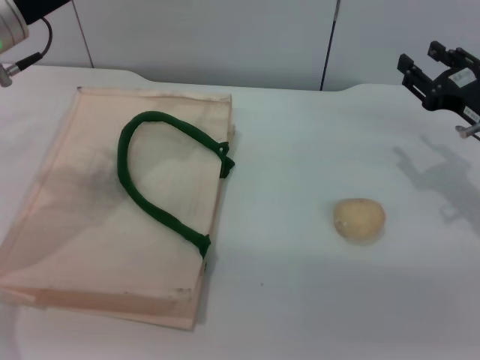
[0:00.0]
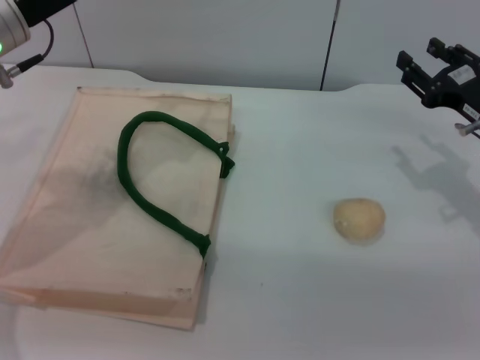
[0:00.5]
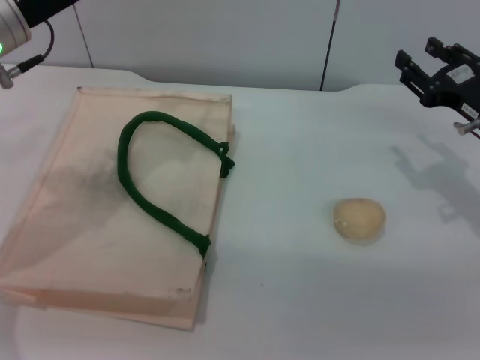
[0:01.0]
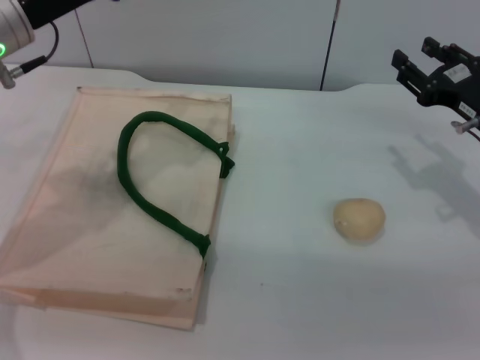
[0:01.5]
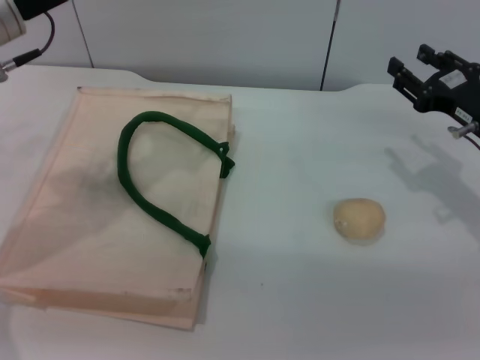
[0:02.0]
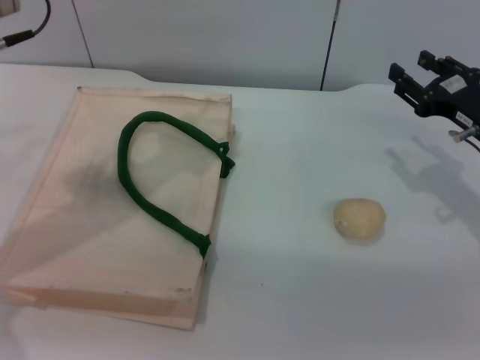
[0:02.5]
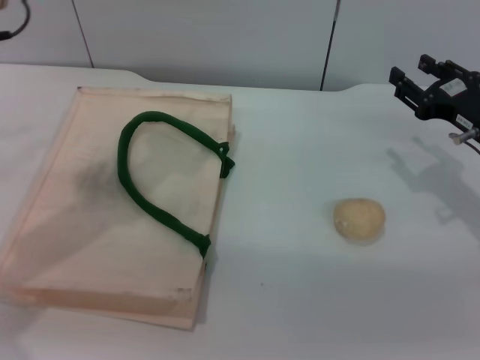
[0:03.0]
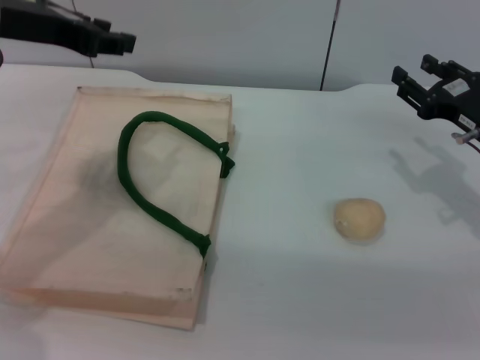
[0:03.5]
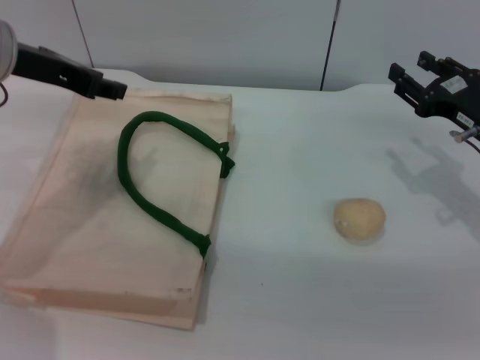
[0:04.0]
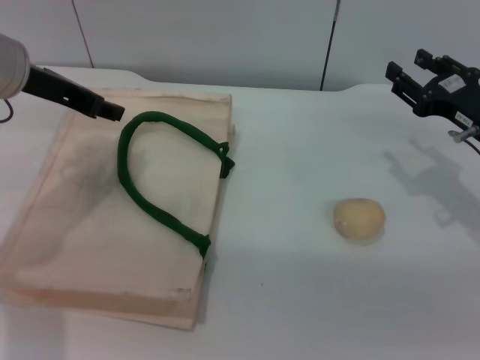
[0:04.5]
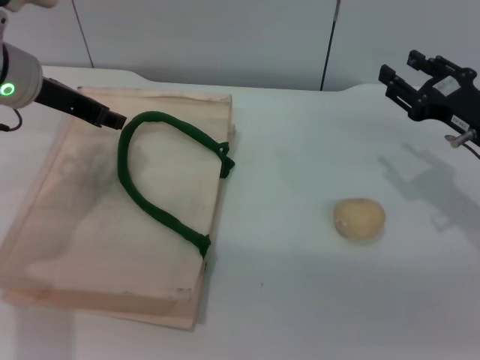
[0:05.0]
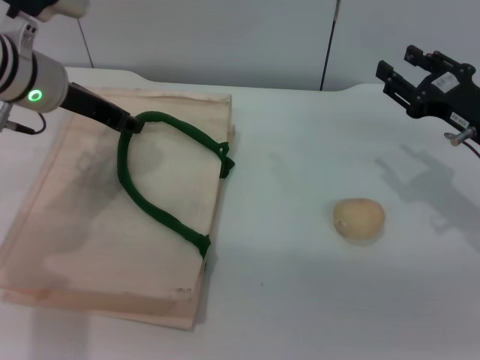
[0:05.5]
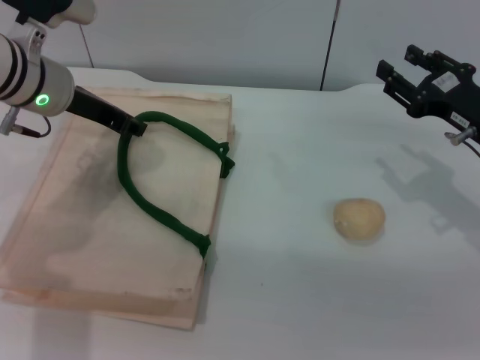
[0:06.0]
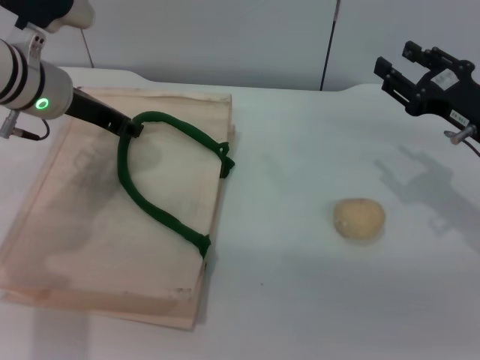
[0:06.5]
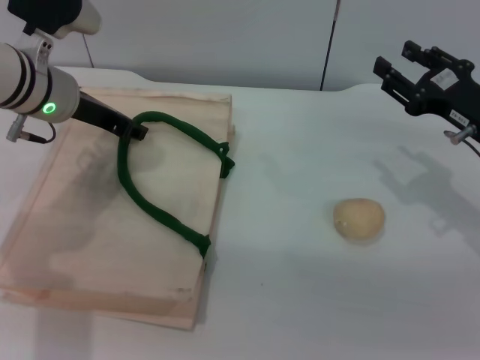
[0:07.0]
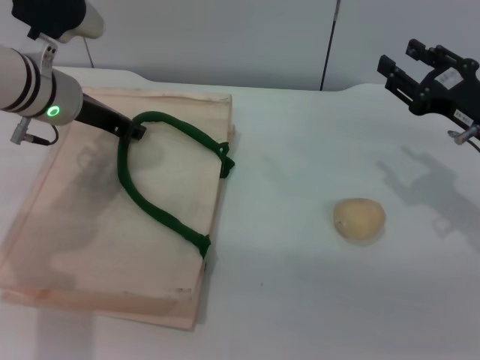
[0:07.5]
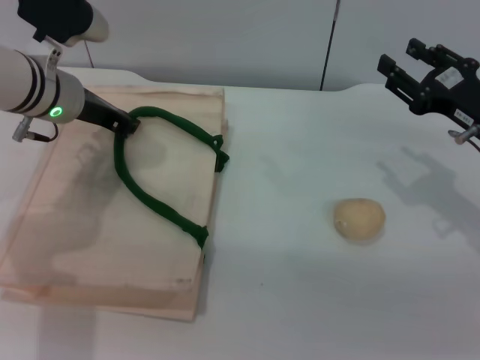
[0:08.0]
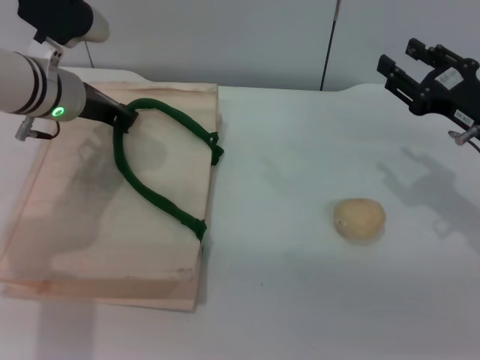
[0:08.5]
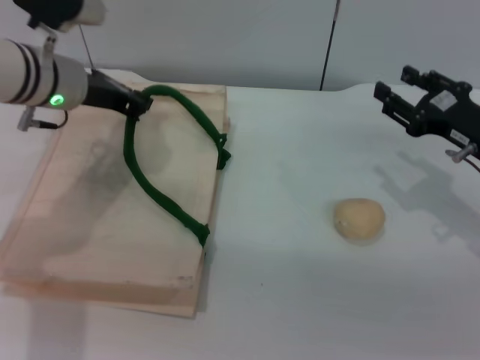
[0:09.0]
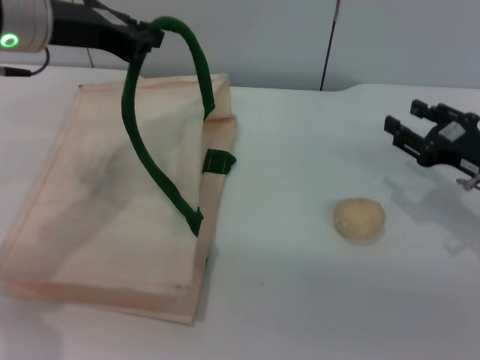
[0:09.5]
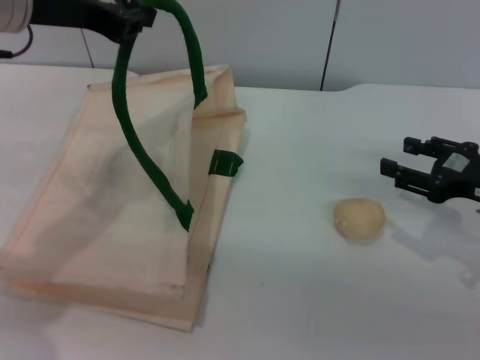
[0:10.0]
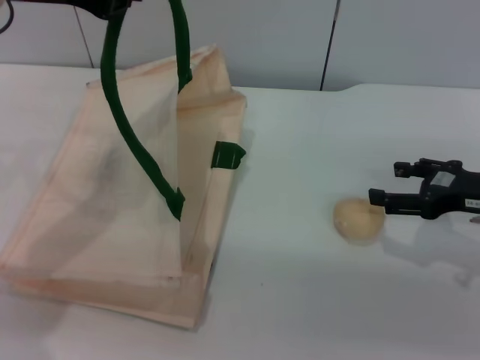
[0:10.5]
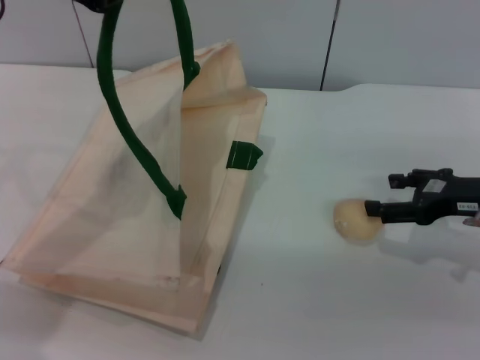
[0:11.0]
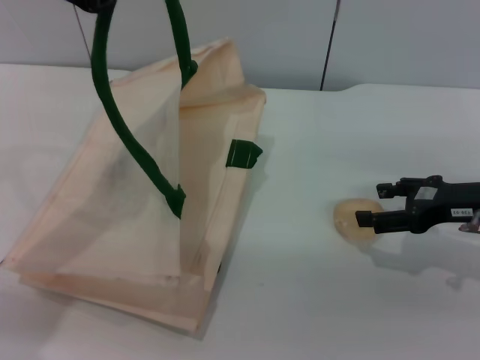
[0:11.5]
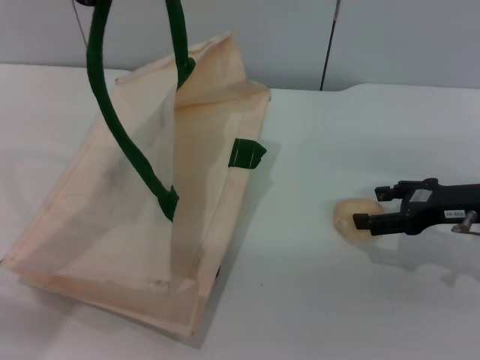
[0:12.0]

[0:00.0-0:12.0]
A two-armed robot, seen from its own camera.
Task of the whole recording: pick up the egg yolk pastry from the table and place it in the white handbag.
Step, 0:00.0 to 0:08.5: Lift the woven bag with the left gripper to open it.
0:00.0 to 0:02.0: There are only small adjustments of the grippers.
0:04.0 to 0:06.0: The left gripper shifts roughly 5 cm downward.
0:06.0 to 0:08.0: The left gripper closes.
0:08.0 to 0:10.0: The right gripper moves roughly 5 cm; the left gripper travels upward and backward by some 15 cm, and closes its fingers.
0:10.0 to 0:12.0: The right gripper opens up, while the left gripper moves roughly 5 cm.

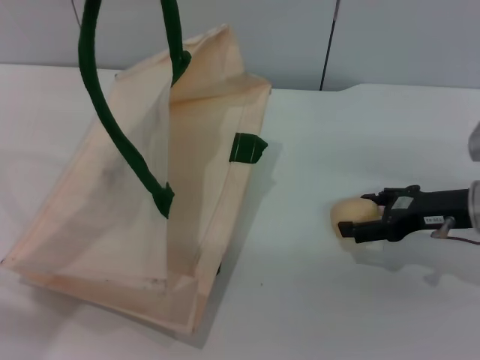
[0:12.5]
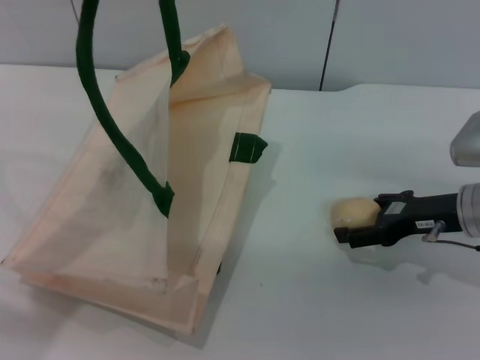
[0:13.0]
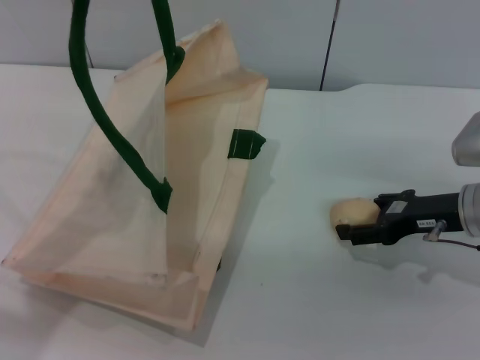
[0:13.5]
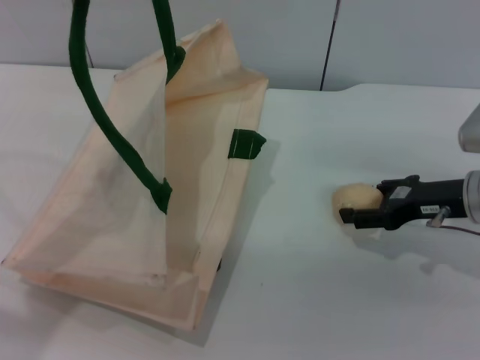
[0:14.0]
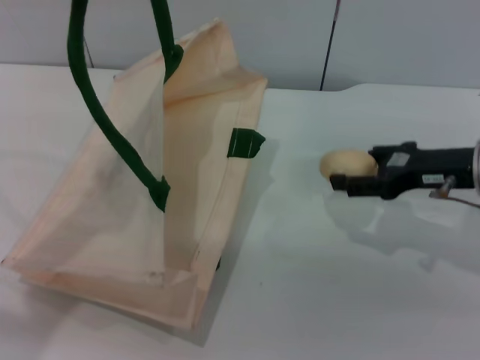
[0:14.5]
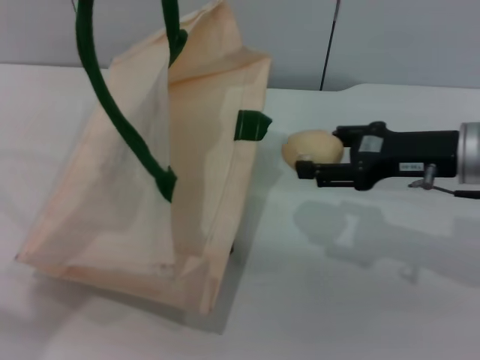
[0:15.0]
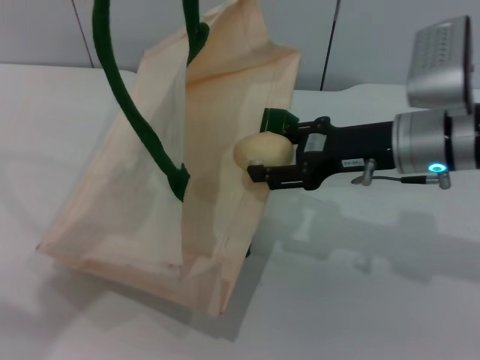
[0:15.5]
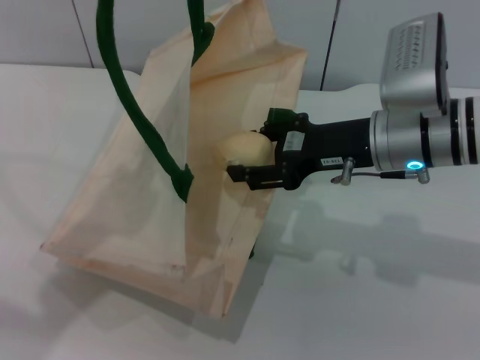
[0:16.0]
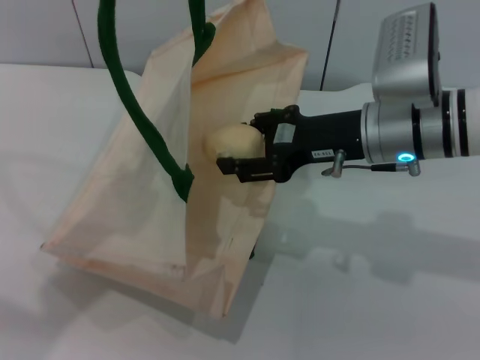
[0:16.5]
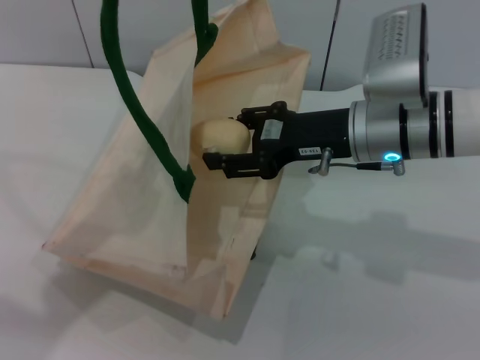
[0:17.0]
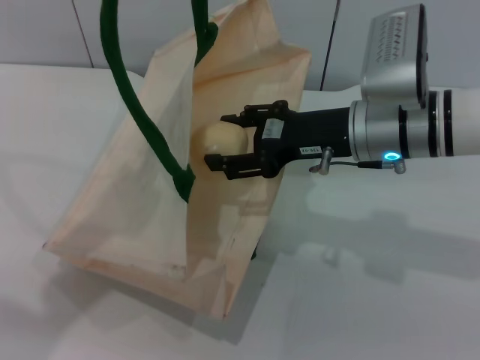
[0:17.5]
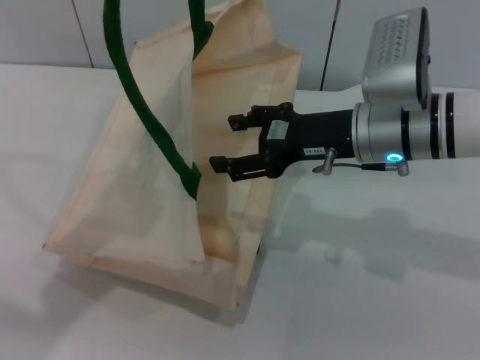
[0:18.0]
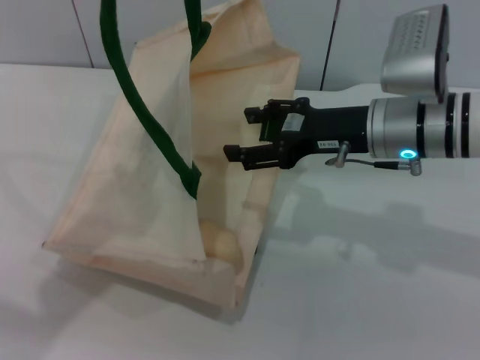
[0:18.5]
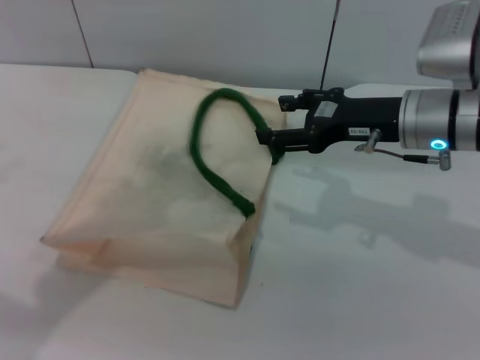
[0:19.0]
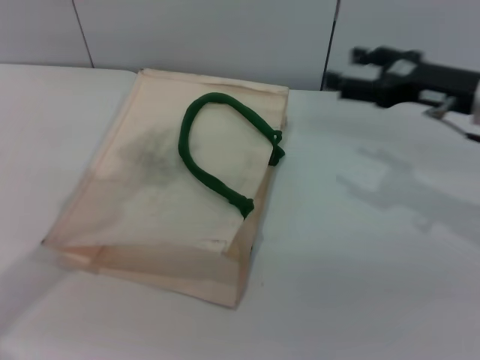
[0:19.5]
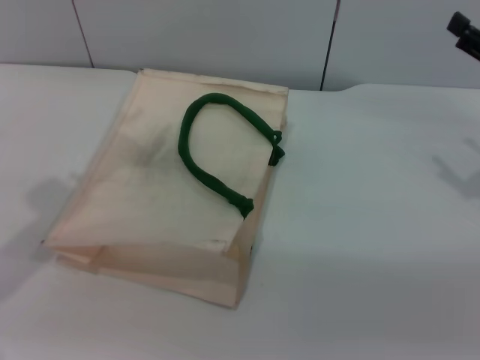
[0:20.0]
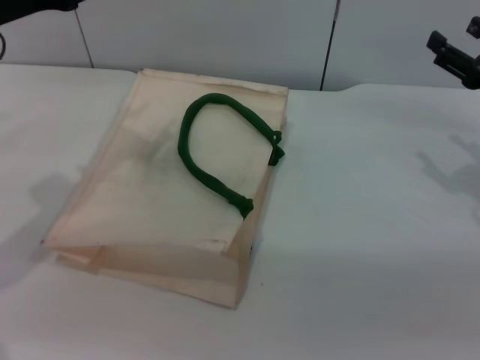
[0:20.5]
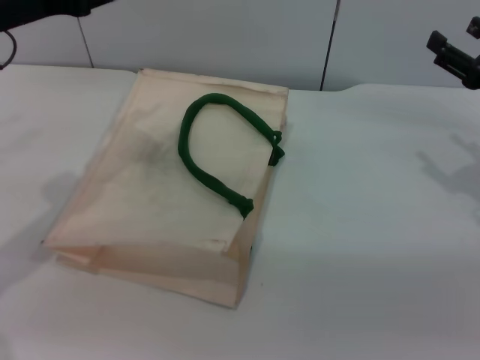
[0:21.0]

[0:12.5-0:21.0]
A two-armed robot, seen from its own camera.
Task of the whole recording: pick up the egg yolk pastry from the table and place it in the white handbag.
Step, 0:12.5 to 0:14.5: Pick up the egg yolk pastry with the right gripper.
Step, 0:15.0 to 0:18.5: Place the peach into the woven bag with the right gripper.
0:12.5 to 0:14.5: The right gripper closes.
0:14.5 to 0:16.5: The right gripper is displaced to the left by roughly 10 cm.
0:16.5 to 0:19.0: The right gripper opens its fingers.
0:19.0 to 0:21.0: The right gripper heads to the right, covering roughly 15 cm. Meanwhile the left gripper goes approximately 10 cm downward, and opens.

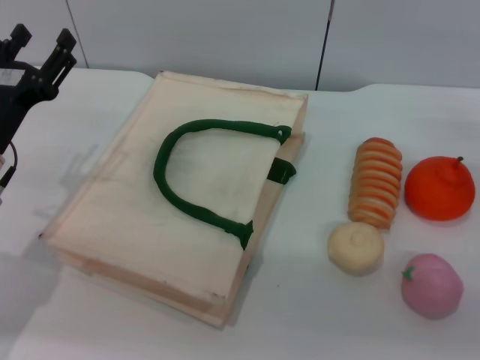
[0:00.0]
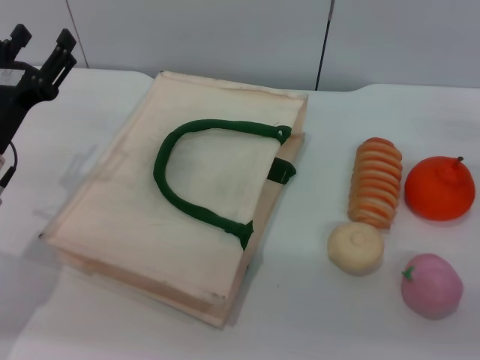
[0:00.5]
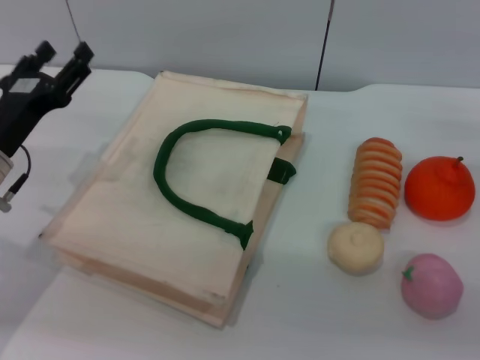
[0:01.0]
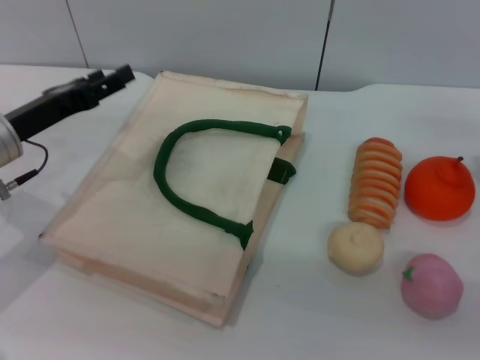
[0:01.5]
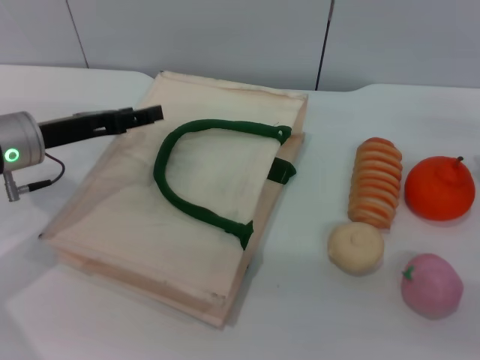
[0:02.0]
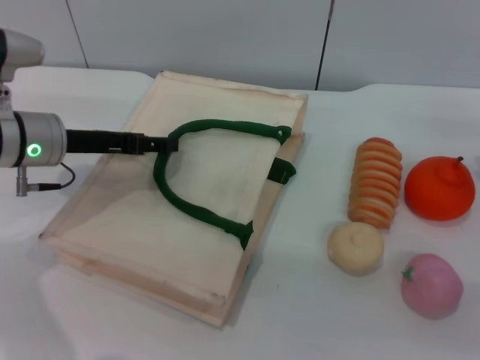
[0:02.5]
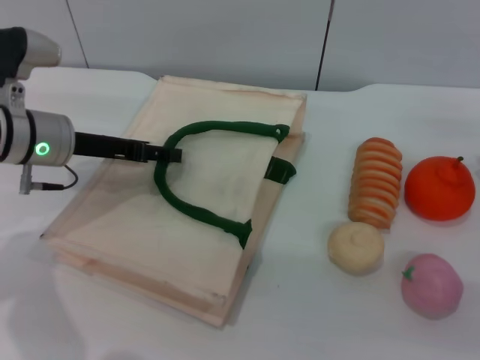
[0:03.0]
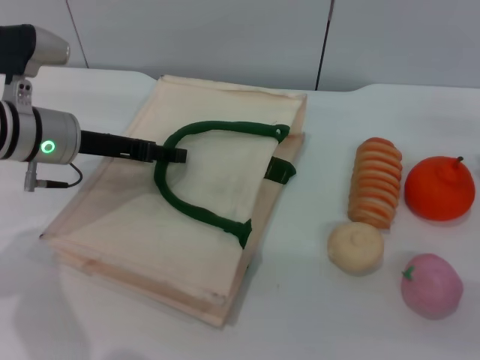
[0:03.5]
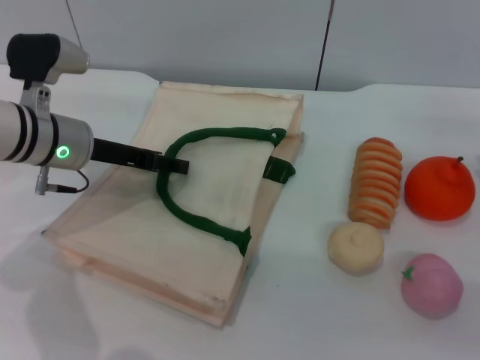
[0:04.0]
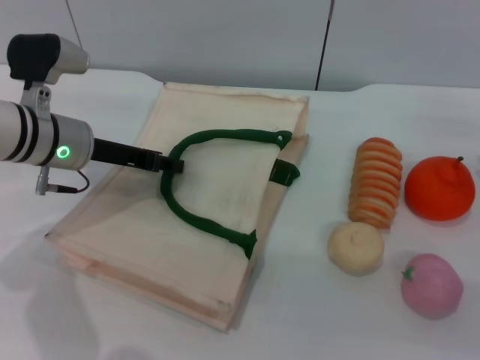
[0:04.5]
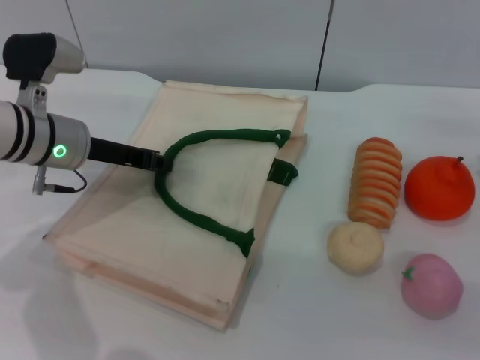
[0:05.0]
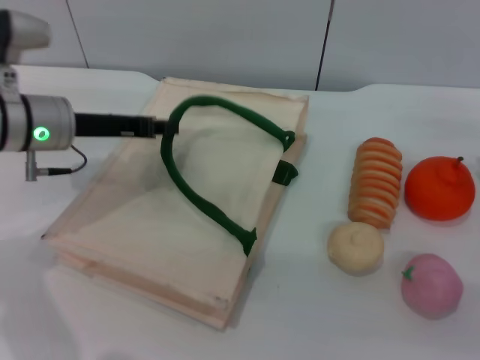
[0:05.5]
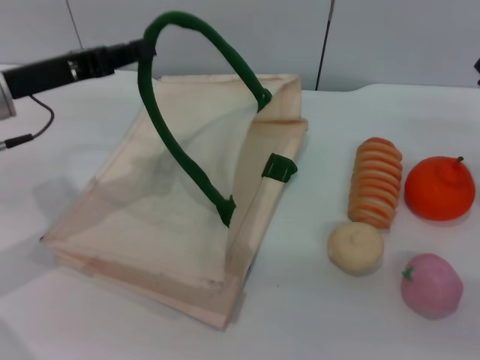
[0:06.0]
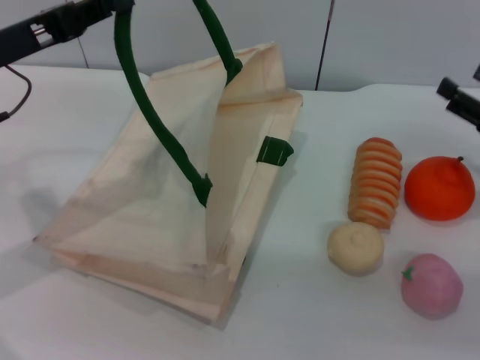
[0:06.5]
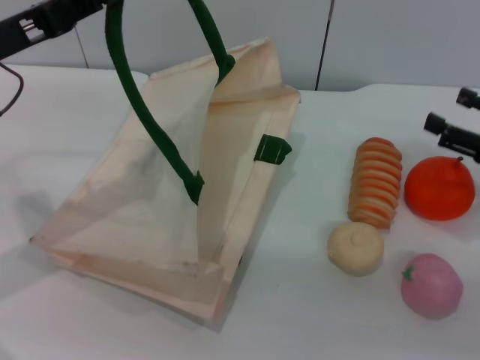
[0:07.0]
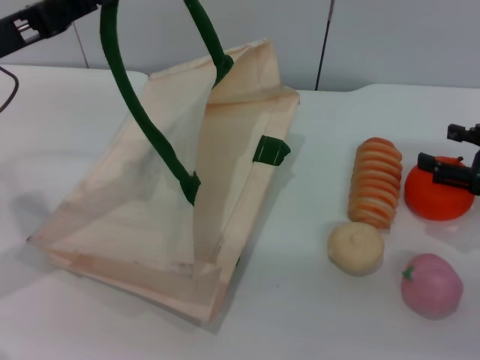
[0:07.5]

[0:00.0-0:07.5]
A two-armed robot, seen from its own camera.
Task of the whole recording: pick up the orange from the table and place it in the white handbag.
Step, 0:00.0 to 0:06.5: Lift the woven bag with the left gripper to open it.
0:00.0 to 0:02.0: The left gripper moves forward, about 5 cm.
0:02.0 to 0:04.0: The left gripper changes place by some 5 cm.
0:04.0 to 0:05.5: The left gripper closes up.
0:05.5 to 0:07.5: The left gripper moves upward and to the left, approximately 10 cm.
